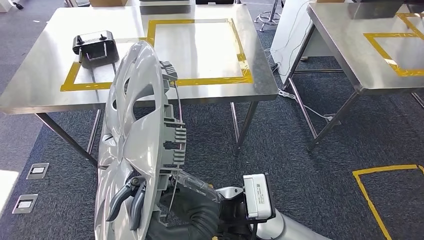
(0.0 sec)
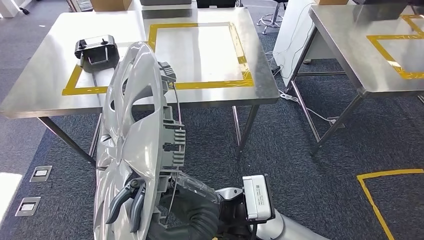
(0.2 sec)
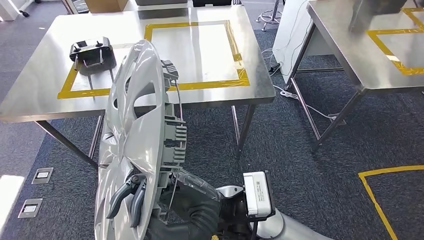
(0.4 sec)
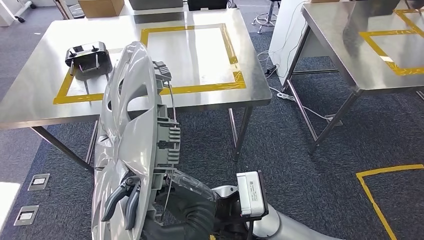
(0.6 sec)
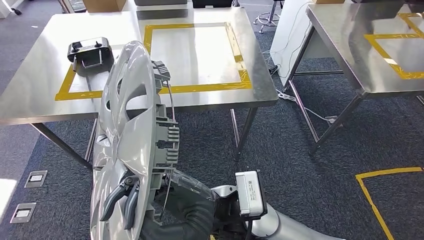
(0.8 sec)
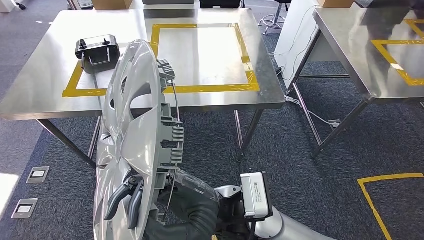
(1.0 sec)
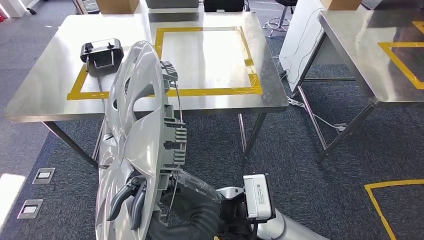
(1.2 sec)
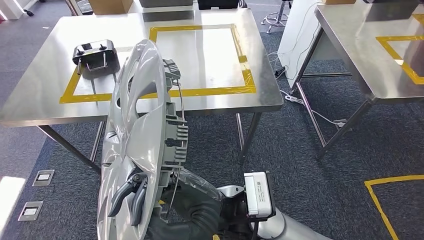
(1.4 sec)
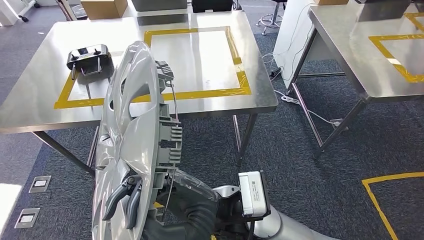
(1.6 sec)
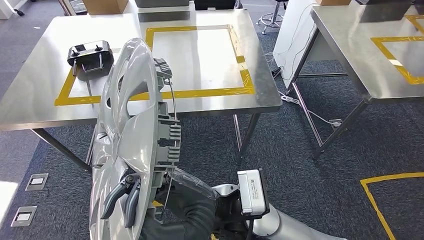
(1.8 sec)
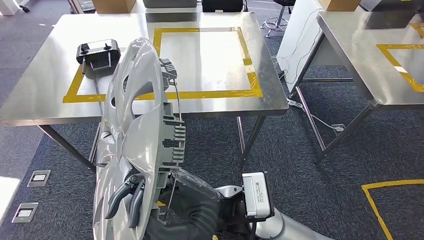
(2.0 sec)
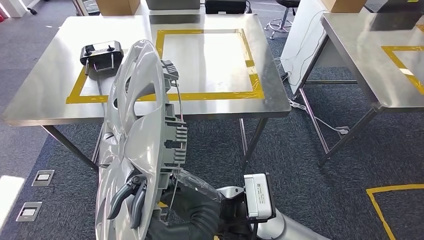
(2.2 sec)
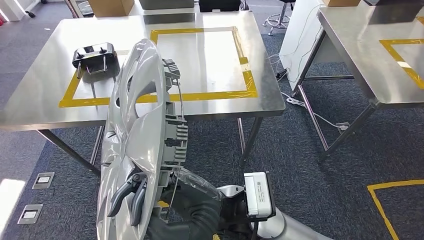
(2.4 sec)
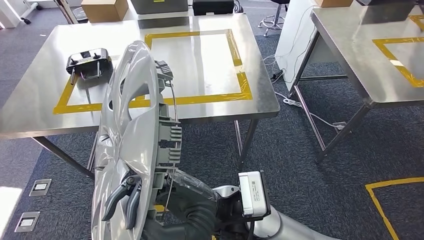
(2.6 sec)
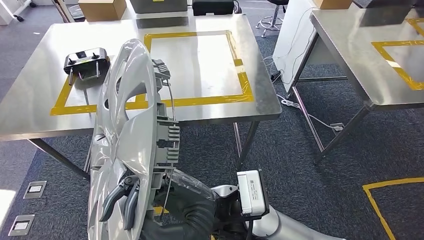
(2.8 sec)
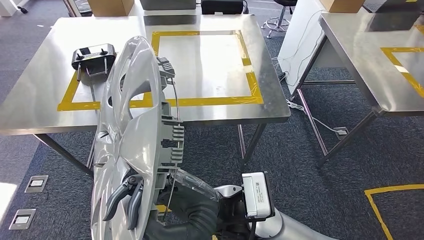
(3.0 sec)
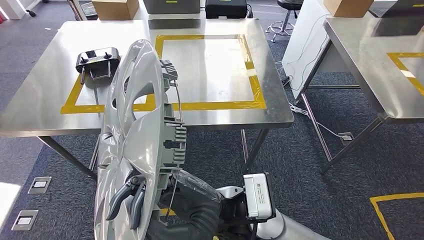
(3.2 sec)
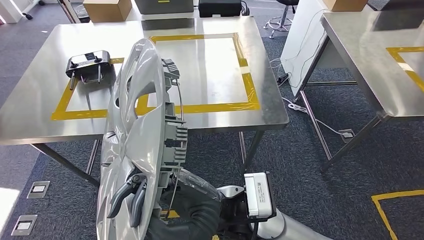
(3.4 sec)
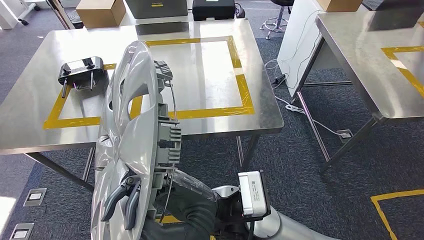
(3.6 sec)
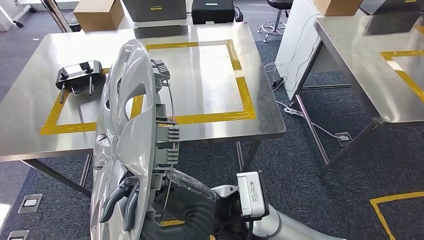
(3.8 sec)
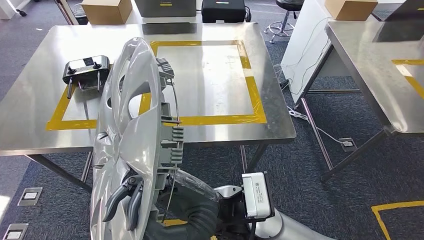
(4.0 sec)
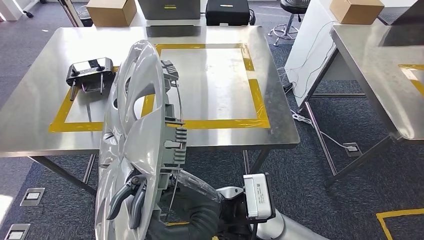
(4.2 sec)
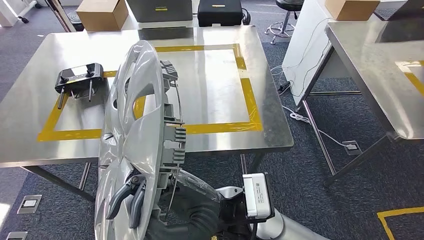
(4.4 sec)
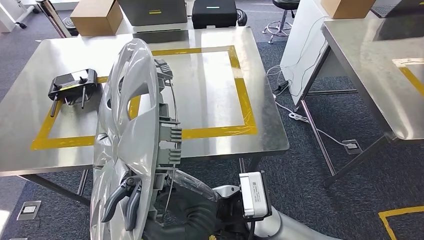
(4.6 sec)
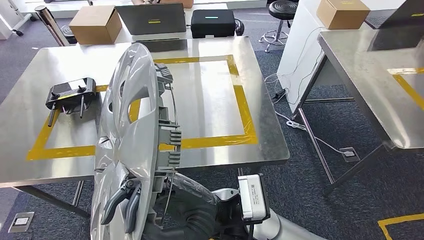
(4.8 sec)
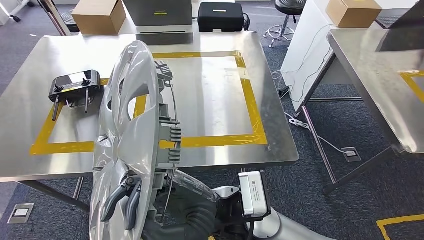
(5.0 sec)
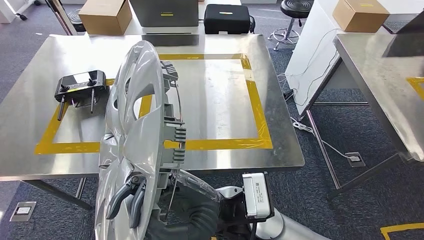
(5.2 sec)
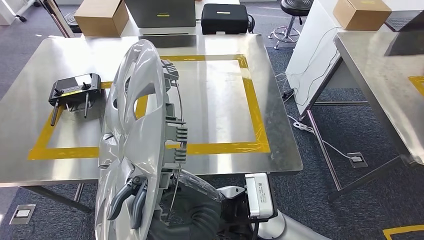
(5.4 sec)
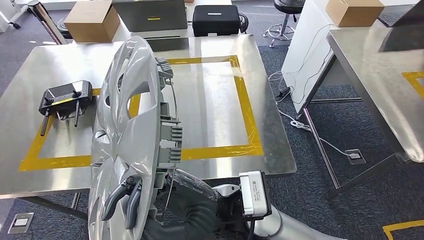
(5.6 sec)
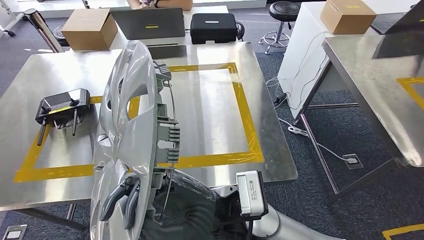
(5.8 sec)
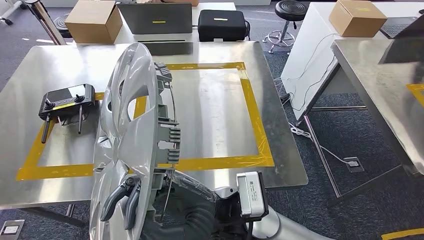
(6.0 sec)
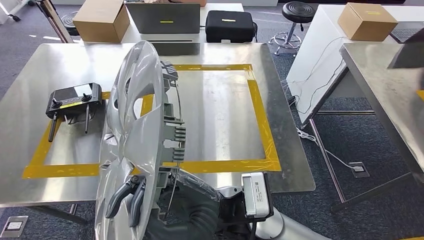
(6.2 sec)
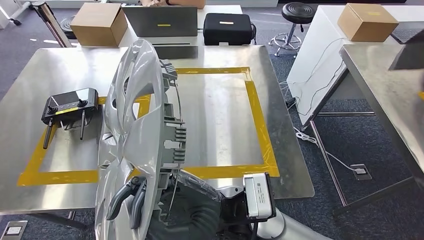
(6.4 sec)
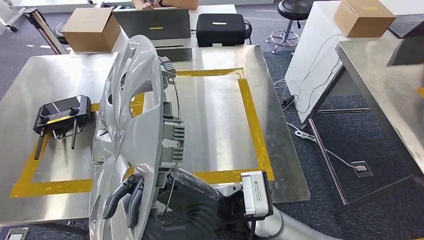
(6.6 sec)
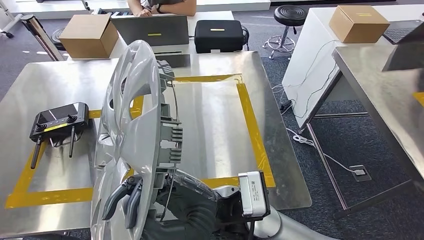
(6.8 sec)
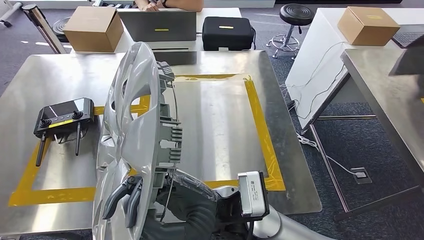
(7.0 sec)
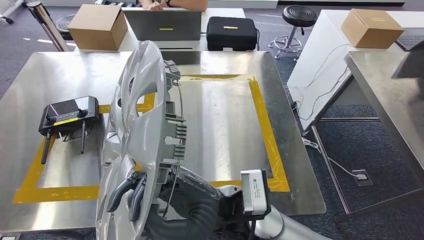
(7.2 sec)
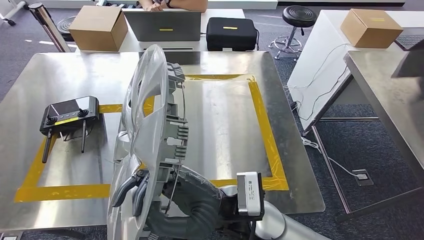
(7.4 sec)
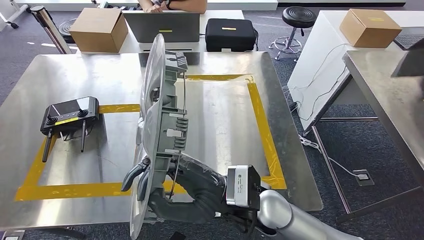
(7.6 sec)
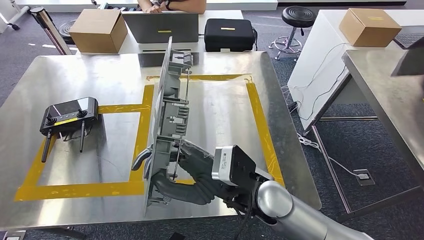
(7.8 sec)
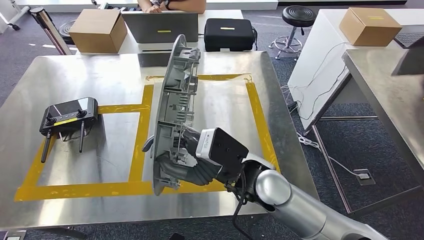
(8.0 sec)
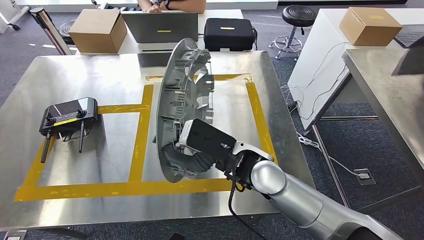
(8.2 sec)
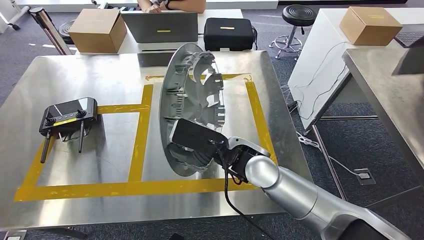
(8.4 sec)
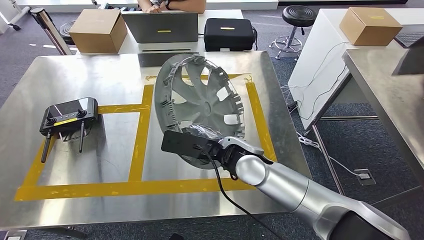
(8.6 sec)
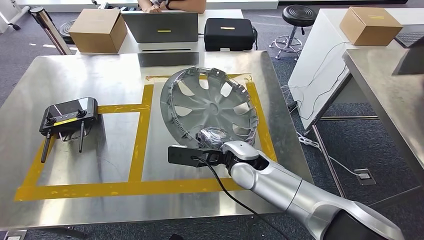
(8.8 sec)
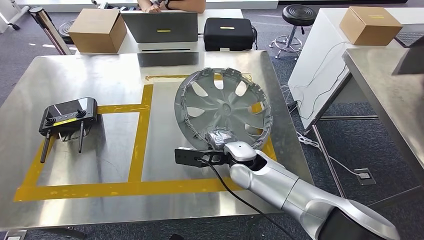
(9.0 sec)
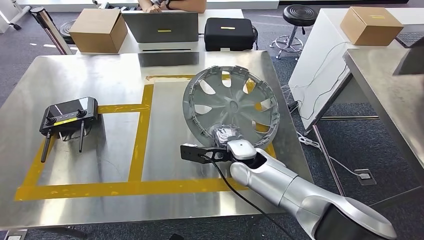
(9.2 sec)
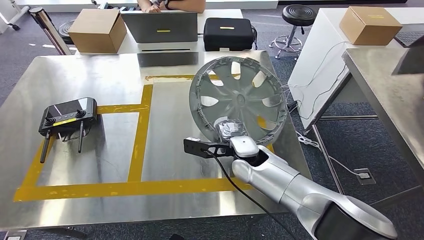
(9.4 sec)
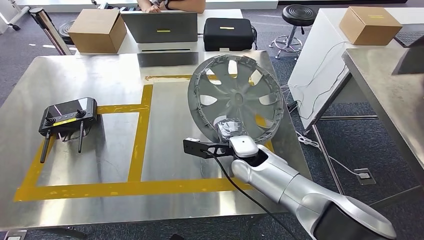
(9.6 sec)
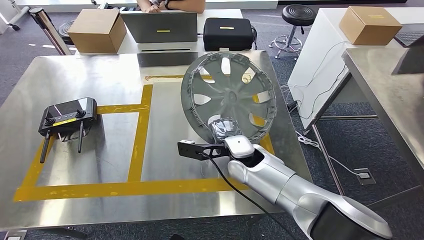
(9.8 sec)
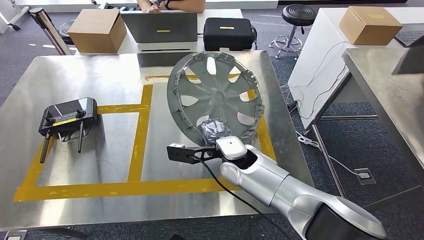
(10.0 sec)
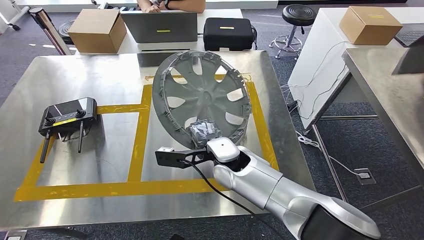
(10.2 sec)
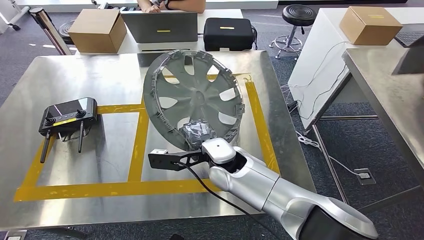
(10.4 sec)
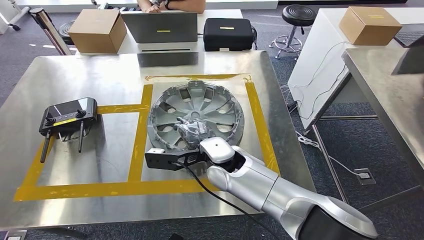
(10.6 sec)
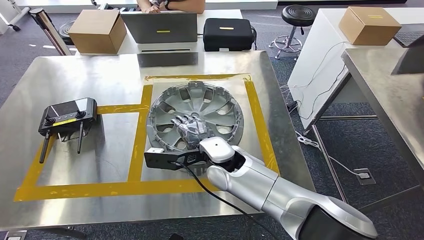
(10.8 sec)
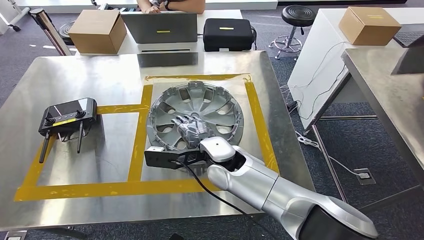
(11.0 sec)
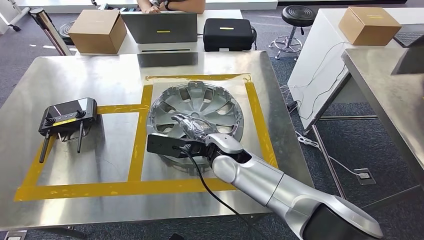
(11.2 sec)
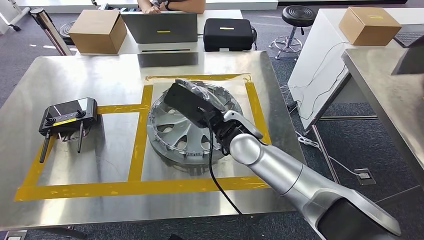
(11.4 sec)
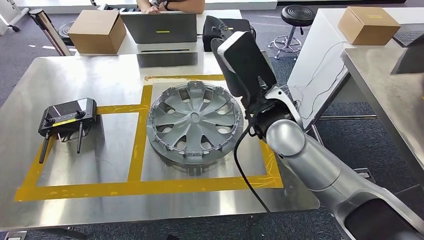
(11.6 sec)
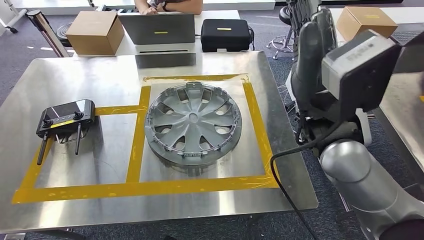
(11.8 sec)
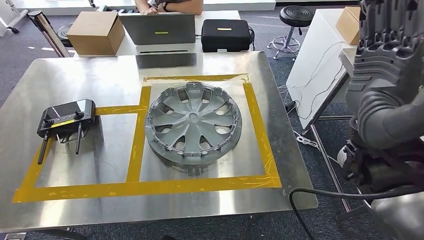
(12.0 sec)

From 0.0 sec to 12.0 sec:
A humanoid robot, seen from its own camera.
From 9.0 sec to 10.4 sec: The right hand travels to the left by approximately 5 cm.

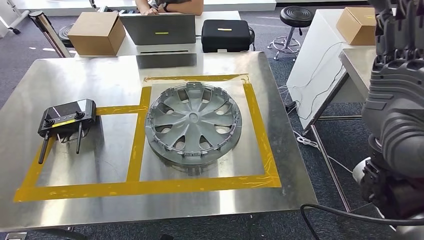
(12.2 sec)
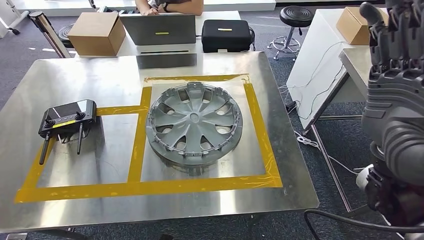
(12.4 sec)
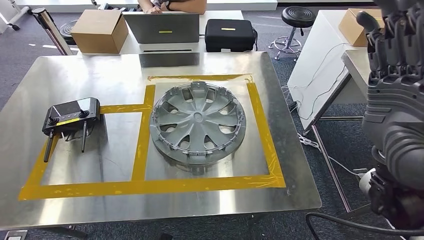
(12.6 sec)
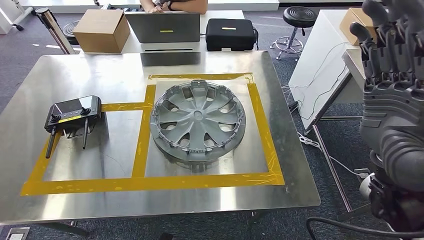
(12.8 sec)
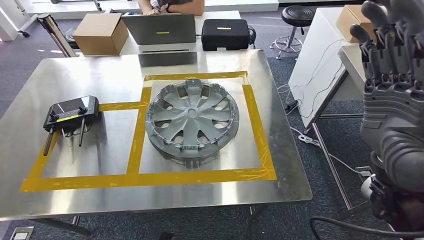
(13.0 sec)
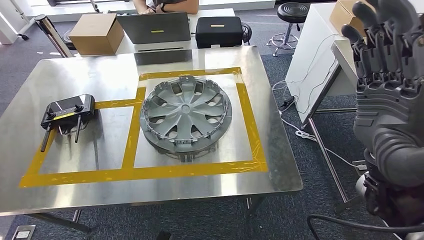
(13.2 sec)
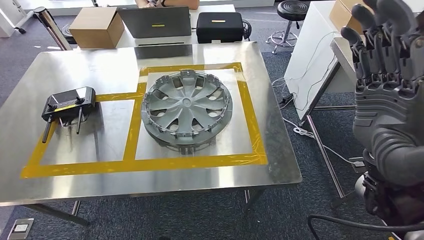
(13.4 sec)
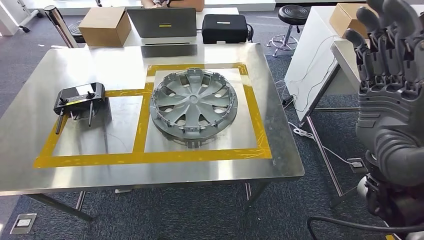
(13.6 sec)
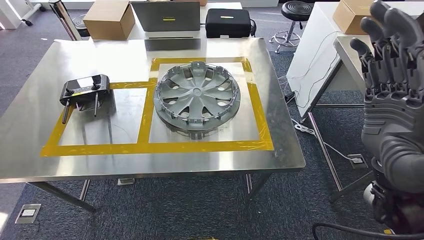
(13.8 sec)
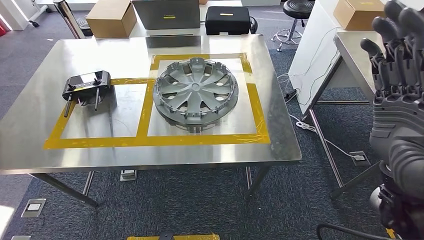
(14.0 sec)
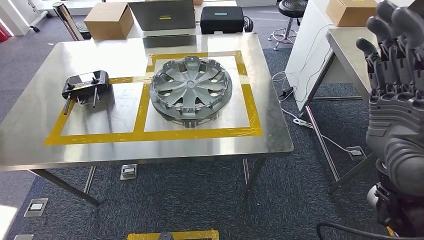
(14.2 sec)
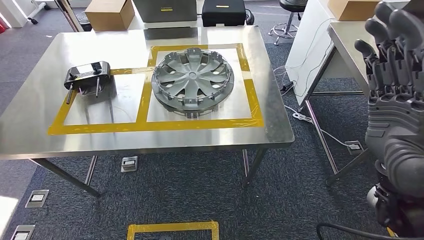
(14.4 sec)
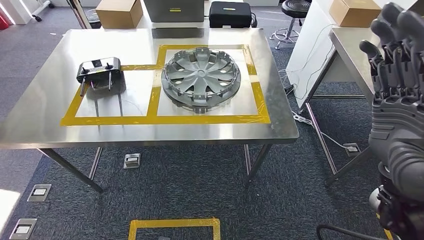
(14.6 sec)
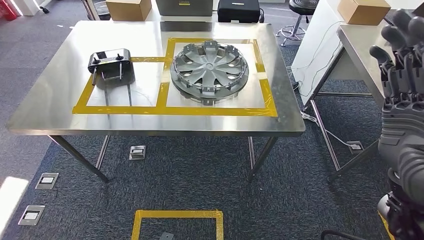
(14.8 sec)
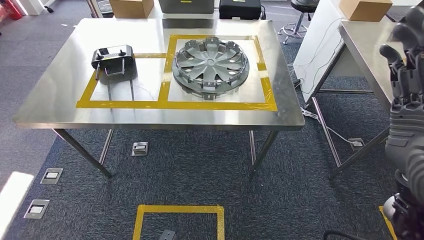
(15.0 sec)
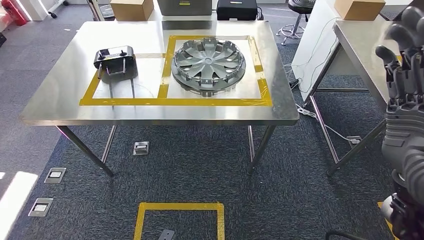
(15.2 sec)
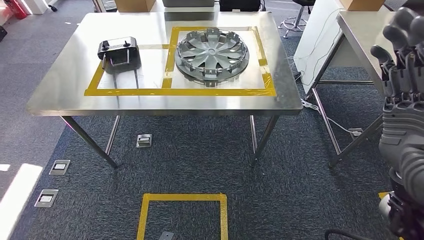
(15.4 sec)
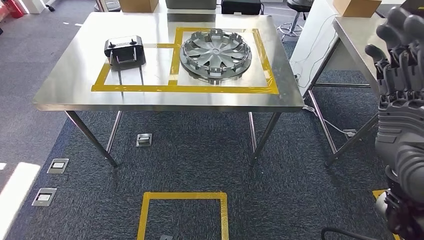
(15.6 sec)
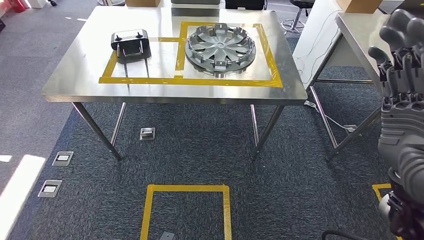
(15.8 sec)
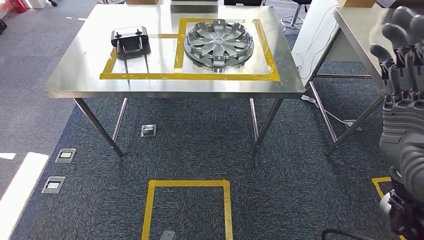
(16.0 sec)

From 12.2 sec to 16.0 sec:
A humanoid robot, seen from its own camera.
Step, from 12.2 sec to 16.0 sec: Move to the initial position of the shelf.
